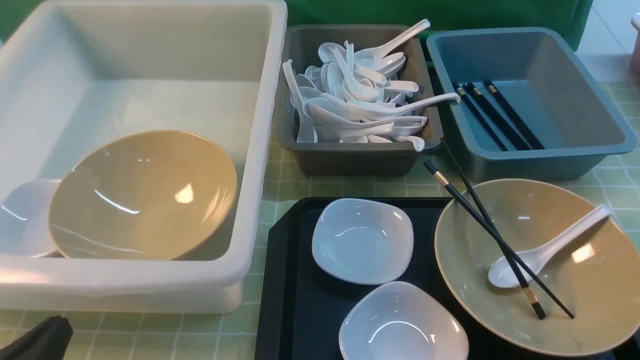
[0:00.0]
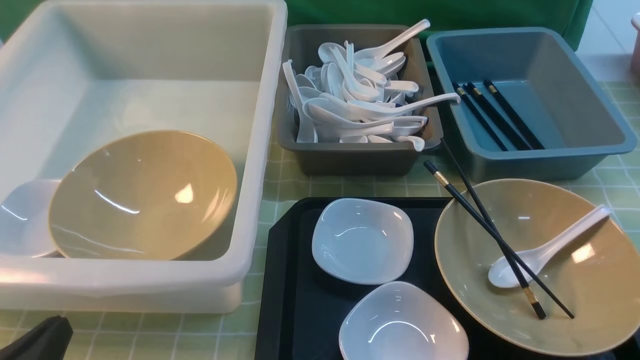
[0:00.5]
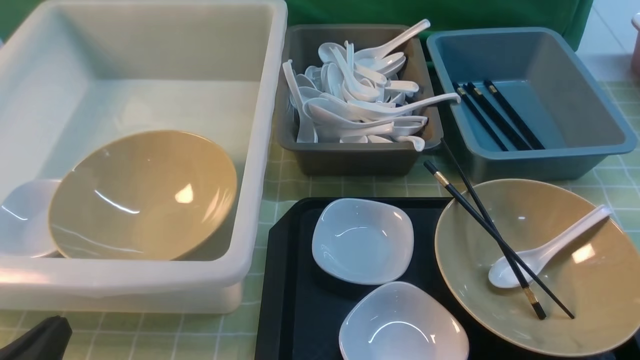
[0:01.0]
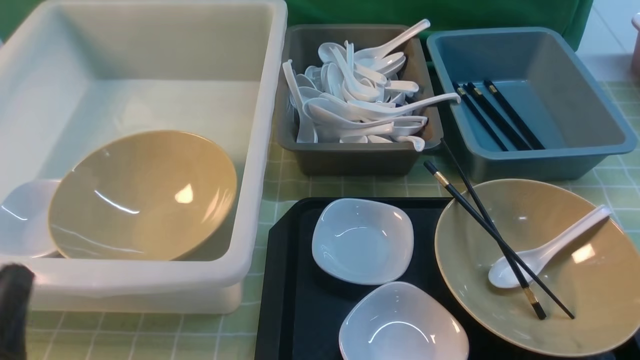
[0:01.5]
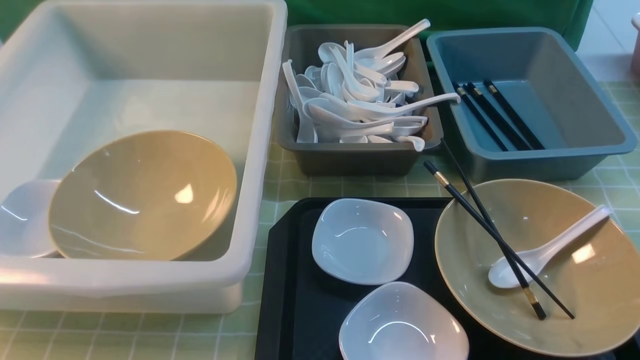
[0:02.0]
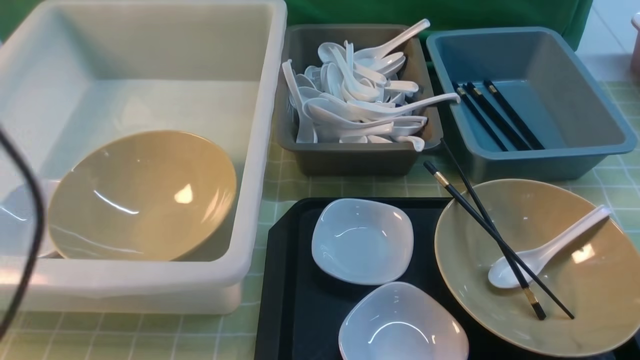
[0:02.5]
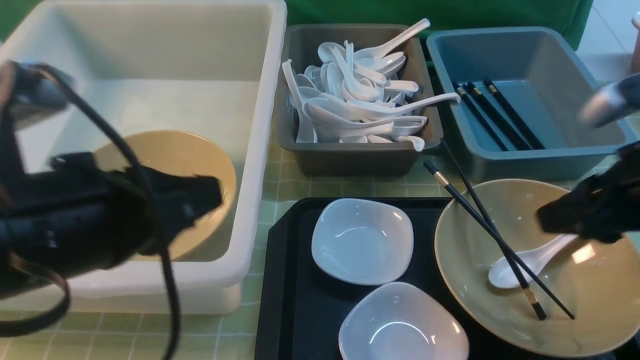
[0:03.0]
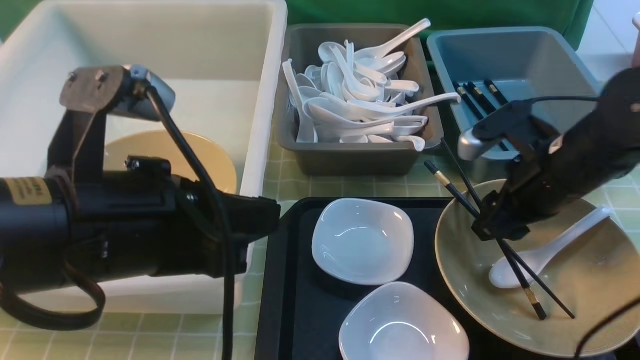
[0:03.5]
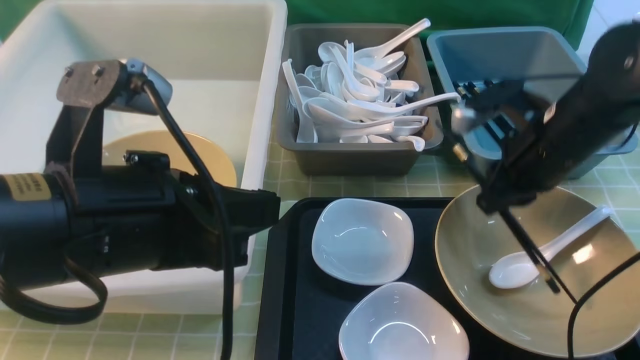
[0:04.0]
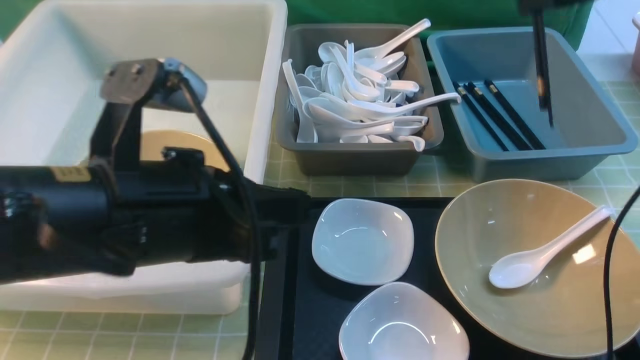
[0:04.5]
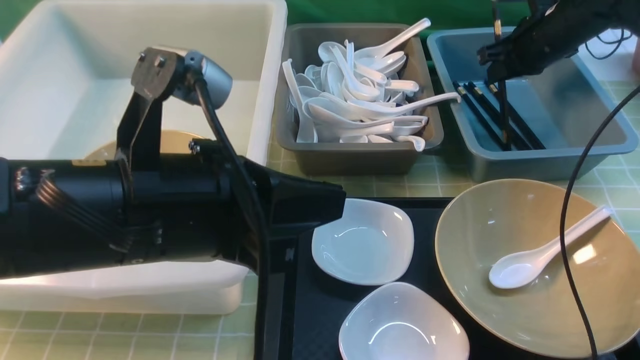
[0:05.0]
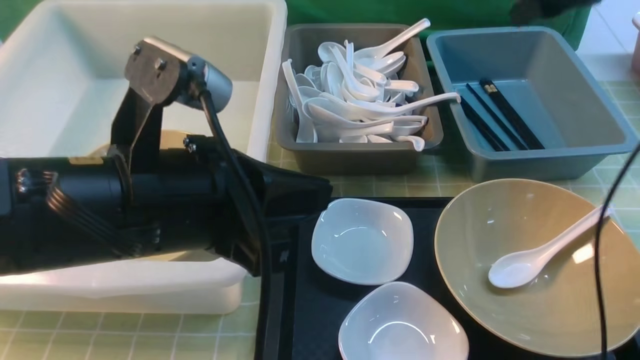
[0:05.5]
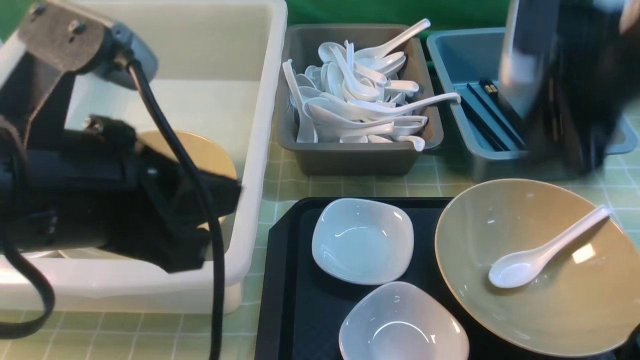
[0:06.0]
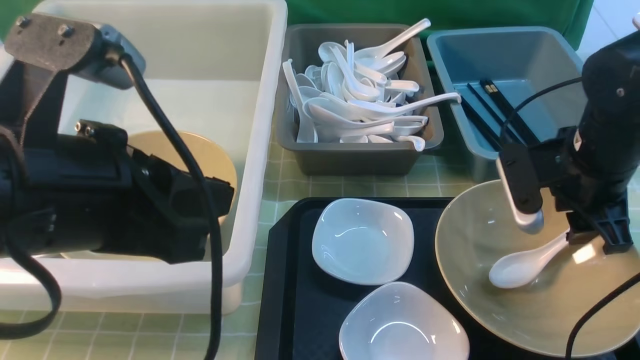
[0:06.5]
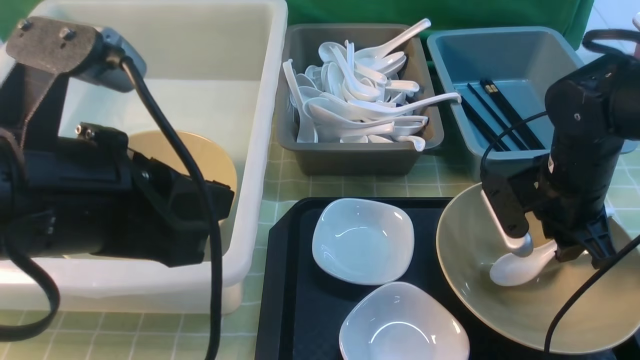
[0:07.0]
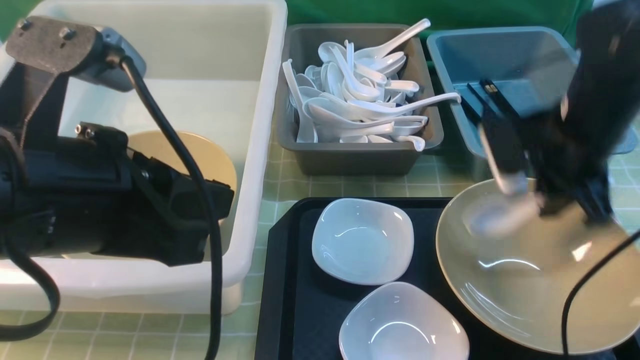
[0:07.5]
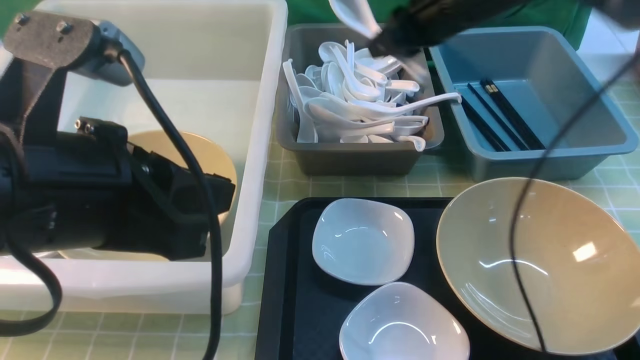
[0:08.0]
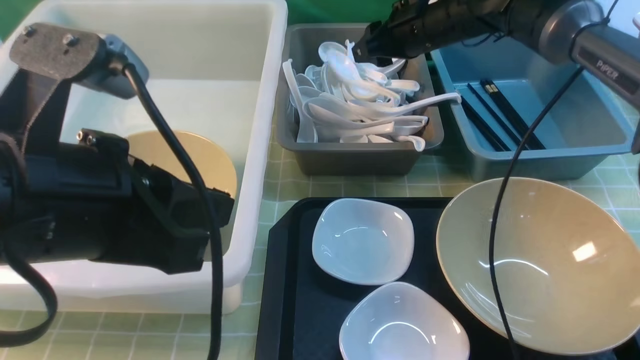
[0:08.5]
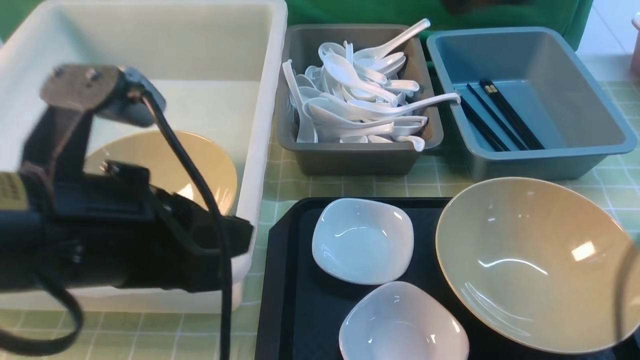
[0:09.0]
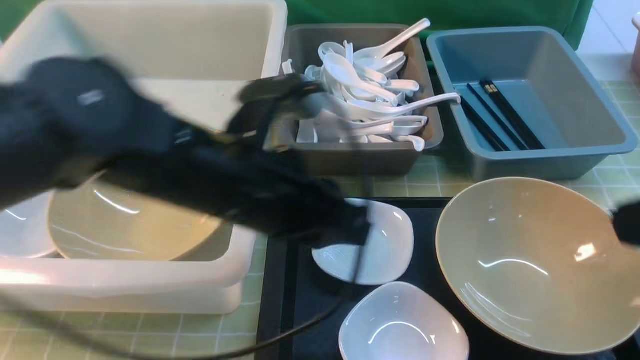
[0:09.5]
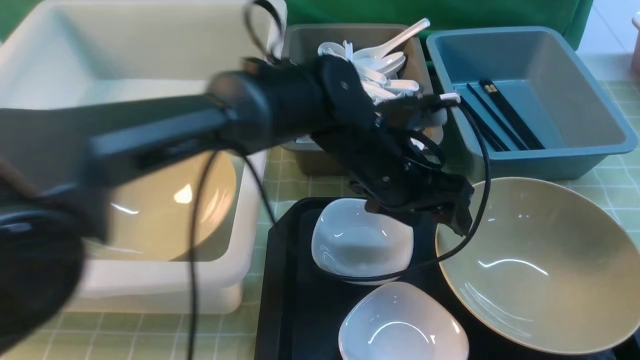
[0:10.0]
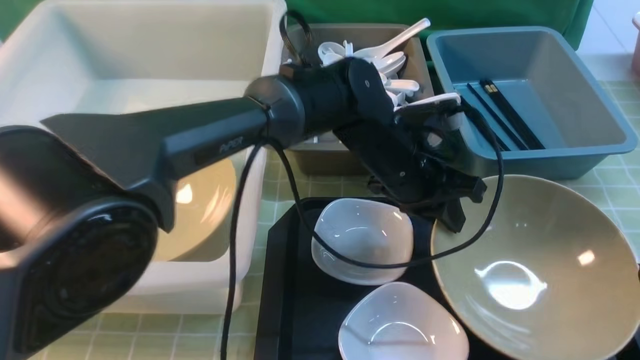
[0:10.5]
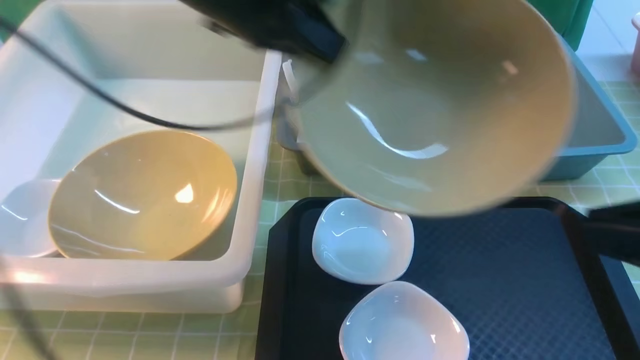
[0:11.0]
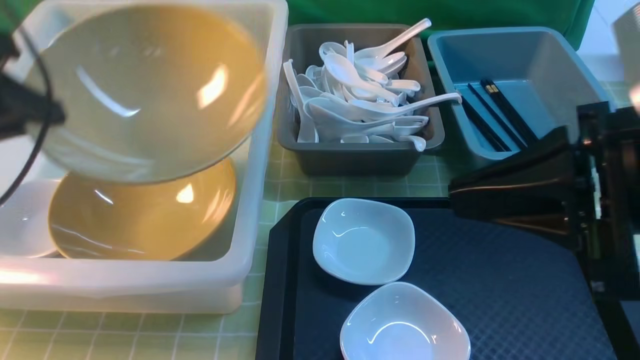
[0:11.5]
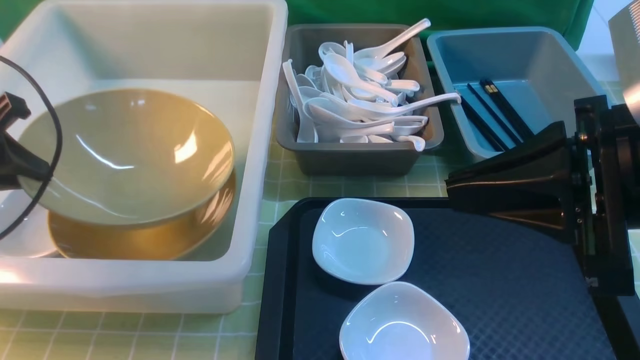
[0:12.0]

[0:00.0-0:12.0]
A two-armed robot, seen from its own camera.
Task of the whole recording: on green table put chopsticks spoon bowls plates into blue grey white boxes.
Step, 0:00.0 to 0:03.5: use the right arm to grab the chopsticks.
Step, 0:04.5 to 0:05.5: use the right arm to put the chopsticks into the small storage box on the right.
Step, 0:06.0 to 0:07.0: use the right arm to grab the soup spoon in the middle.
Step, 0:07.5 to 0:08.5: use the right arm to put the soup spoon into the small storage box in the middle.
Step, 0:09.0 to 0:10.5: use the left arm to grab the yellow noodle bowl on the left.
0:00.0 to 0:02.0: The left gripper heads upward, covering approximately 15 cm.
0:02.0 to 0:04.0: The left gripper shifts about 15 cm to the right and forward. The right gripper travels forward by some 30 cm, and closes its fingers.
0:04.0 to 0:06.0: The right gripper heads upward, covering some 5 cm, travels forward and back again, some 15 cm each way, and opens its fingers.
0:06.0 to 0:08.0: The right gripper travels forward and to the left by approximately 15 cm, and closes.
0:08.0 to 0:10.0: The right gripper shifts approximately 40 cm backward, and opens, then closes again; the left gripper travels to the right, forward and downward by some 30 cm, and opens.
0:10.0 to 0:12.0: The right gripper is displaced forward and to the left by some 10 cm. Meanwhile the left gripper goes approximately 40 cm to the left, and closes up.

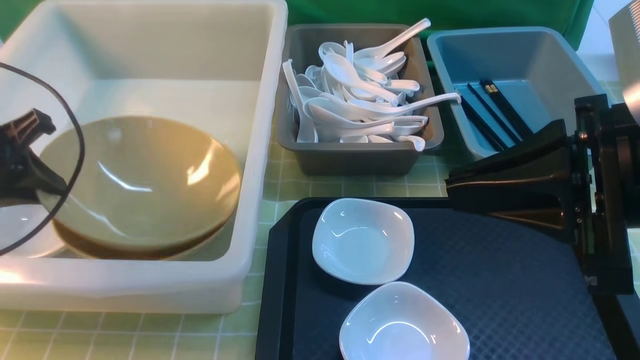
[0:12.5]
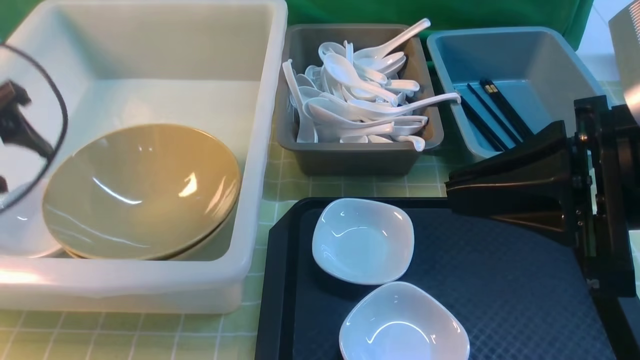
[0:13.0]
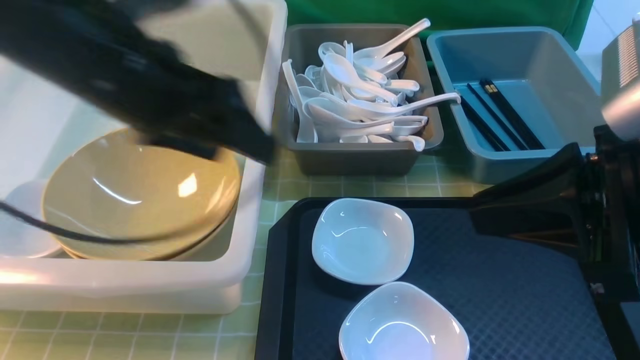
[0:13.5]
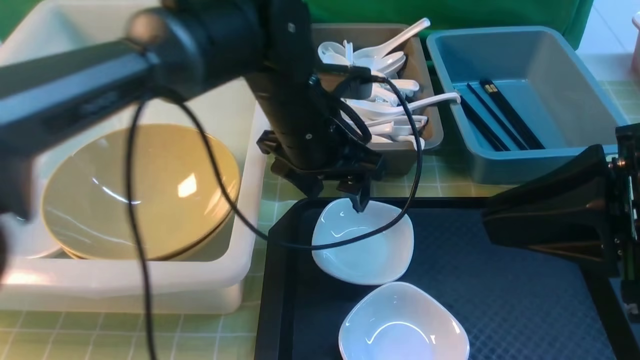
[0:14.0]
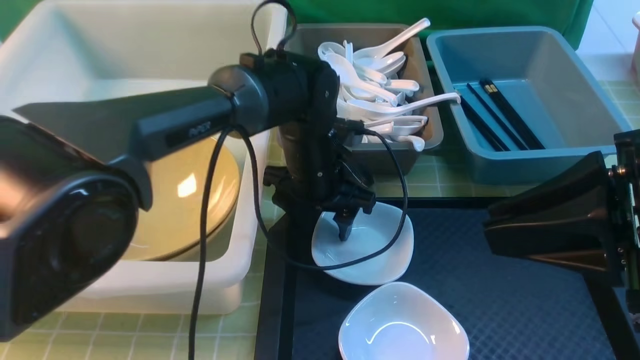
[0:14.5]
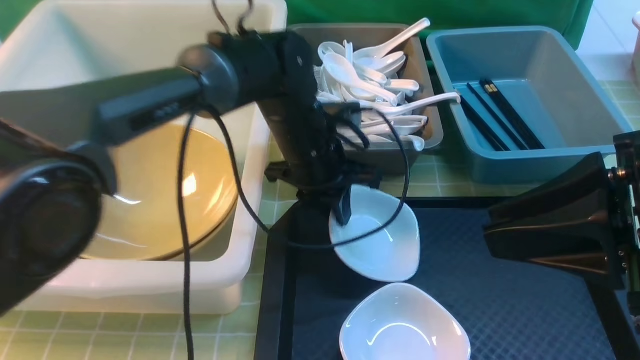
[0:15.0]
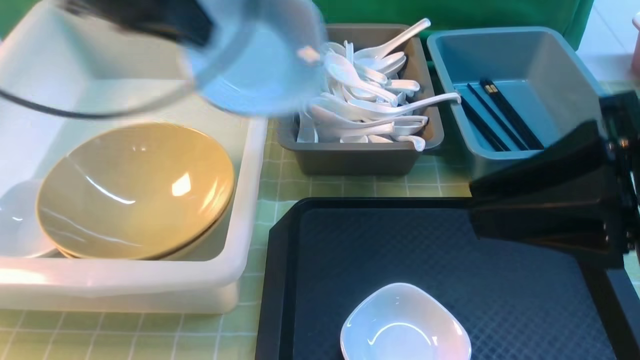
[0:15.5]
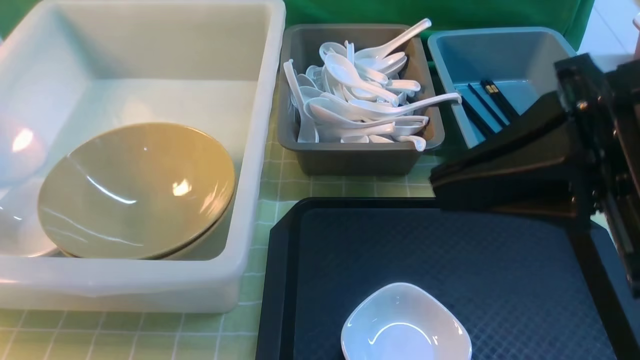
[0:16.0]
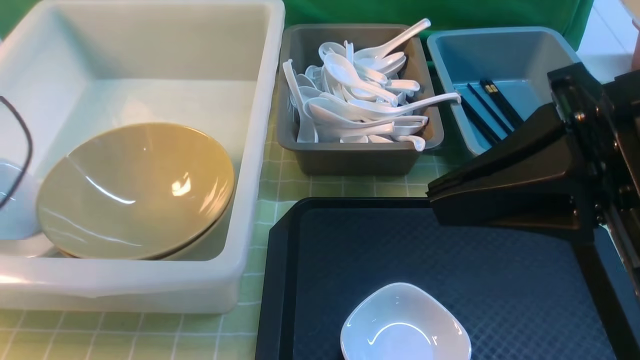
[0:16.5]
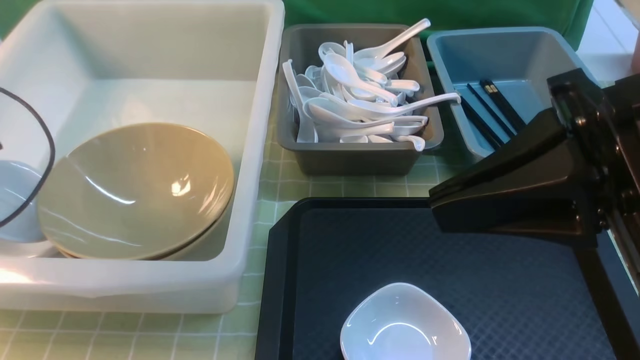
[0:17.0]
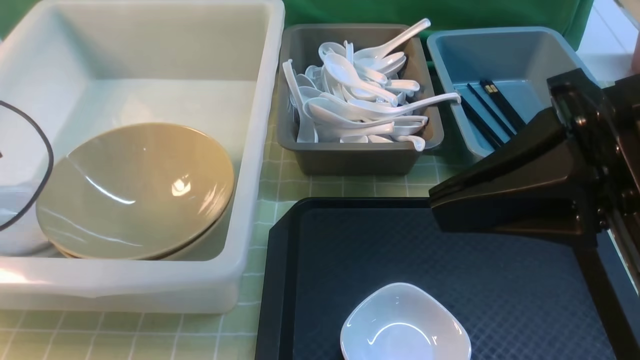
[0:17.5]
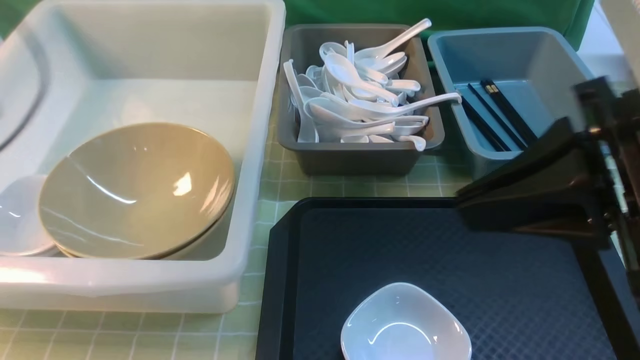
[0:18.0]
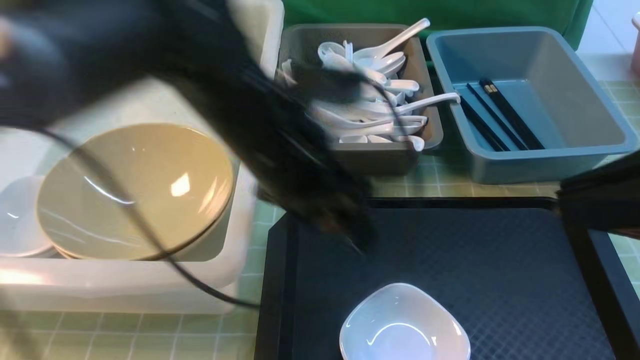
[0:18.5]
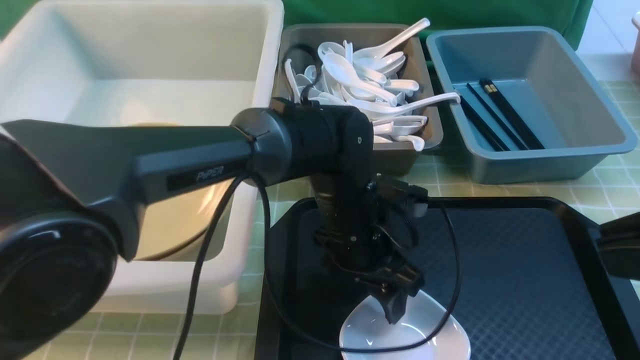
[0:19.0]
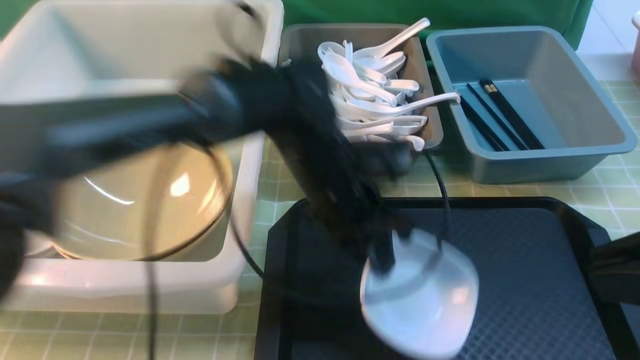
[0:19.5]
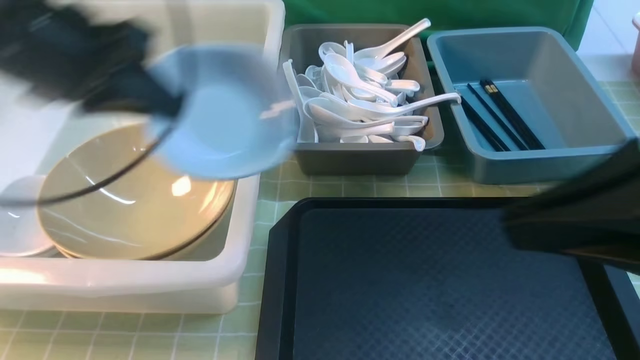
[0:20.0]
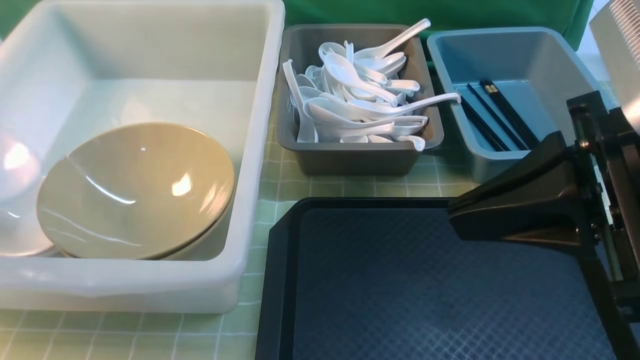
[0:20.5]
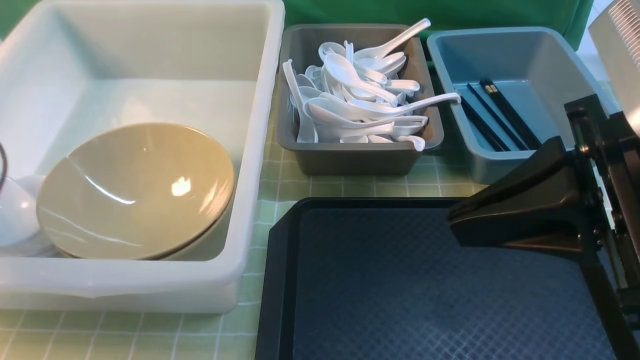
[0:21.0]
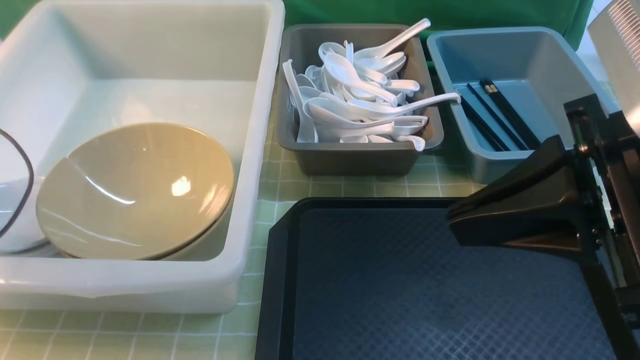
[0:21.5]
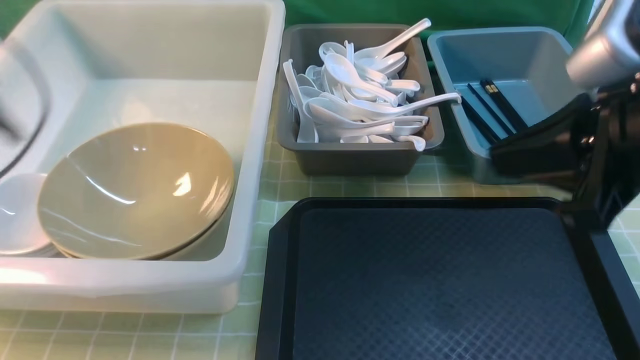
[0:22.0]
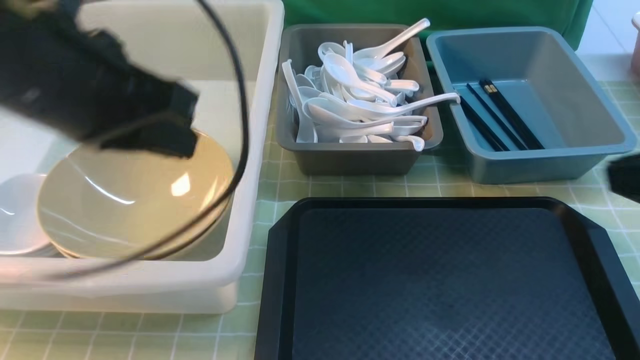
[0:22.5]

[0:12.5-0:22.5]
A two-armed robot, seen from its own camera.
Task of the whole recording: on green table put chopsticks spoon bowls plates into blue grey white boxes.
Step, 0:13.0 to 0:15.0: use the left arm to grab the plate.
Step, 0:15.5 to 0:17.5: use the left arm to put the plate into the large storage box on the left.
Step, 0:18.0 to 0:19.0: use the left arm to grab the plate.
Step, 0:19.5 to 0:21.5: use the left arm to put the plate into the large storage box on the left.
0:12.5 to 0:14.5: The left gripper is displaced to the right by some 30 cm, and opens.
0:14.5 to 0:16.5: The left gripper shifts roughly 40 cm to the left, and closes; the right gripper closes.
0:16.5 to 0:18.5: The right gripper ends up roughly 5 cm from where it was, while the left gripper is displaced to the right by approximately 35 cm, and opens its fingers.
0:18.5 to 0:20.5: The right gripper moves roughly 5 cm, while the left gripper goes approximately 35 cm to the left, and closes up.
0:20.5 to 0:22.5: The left gripper moves to the right, about 20 cm, and opens, then closes again. Meanwhile the right gripper goes some 5 cm to the right.
